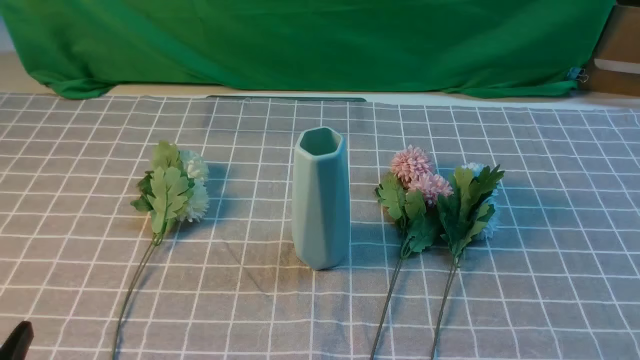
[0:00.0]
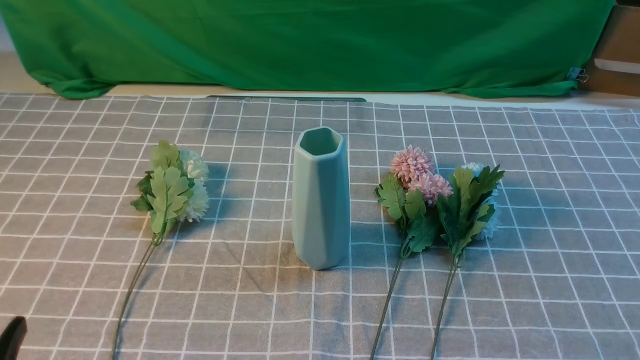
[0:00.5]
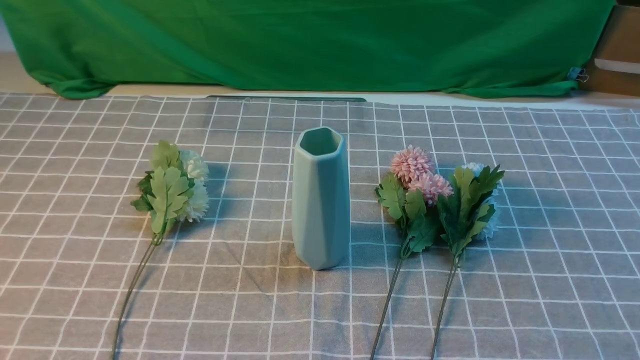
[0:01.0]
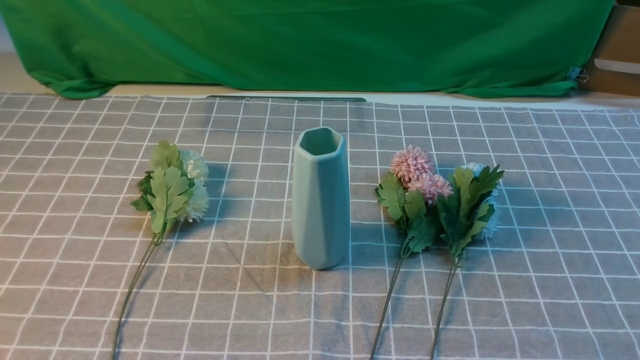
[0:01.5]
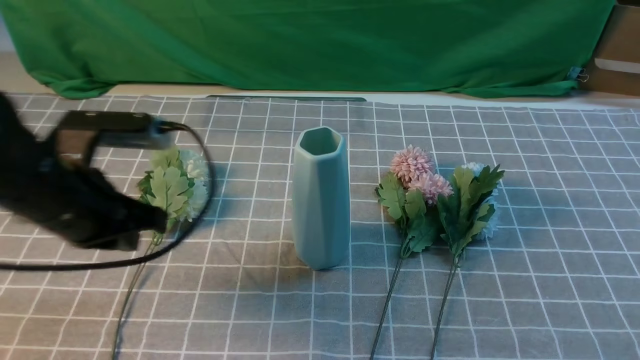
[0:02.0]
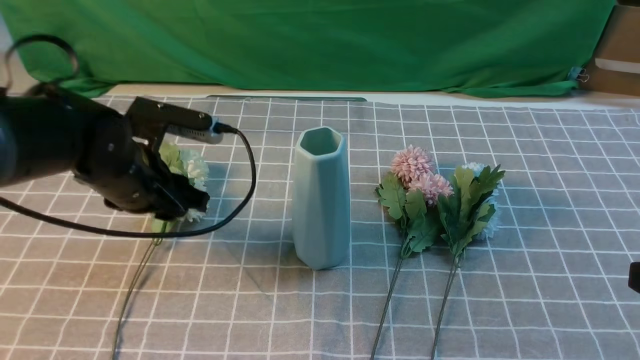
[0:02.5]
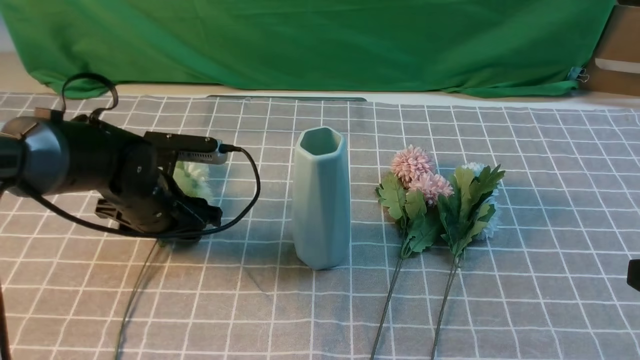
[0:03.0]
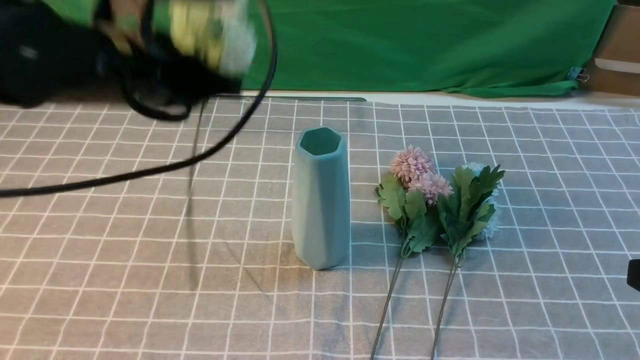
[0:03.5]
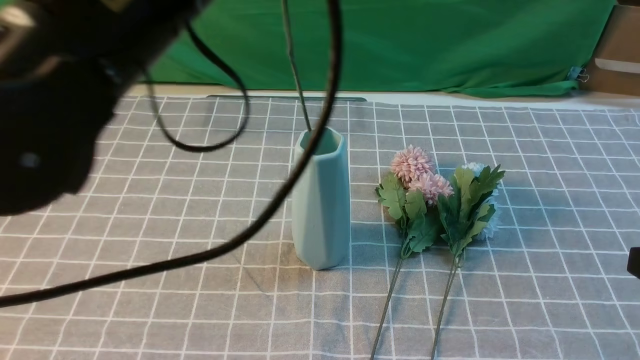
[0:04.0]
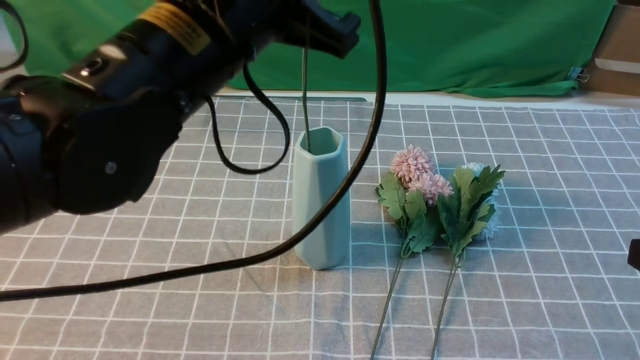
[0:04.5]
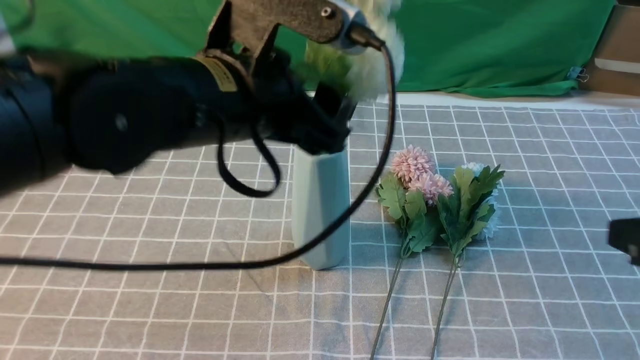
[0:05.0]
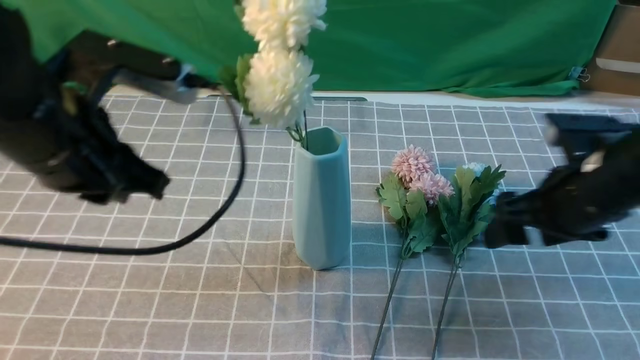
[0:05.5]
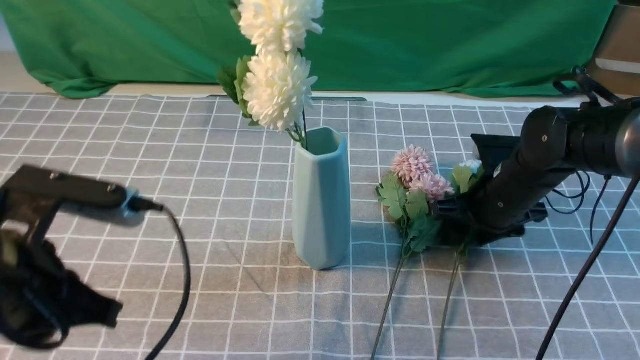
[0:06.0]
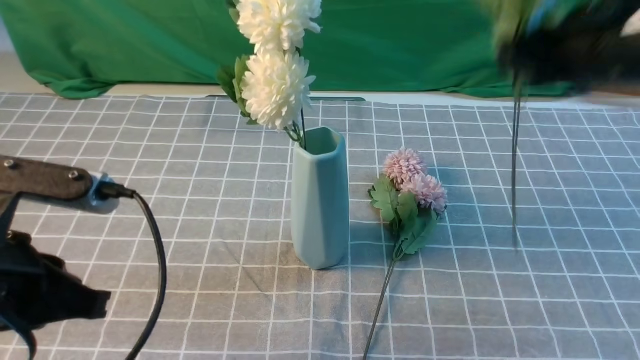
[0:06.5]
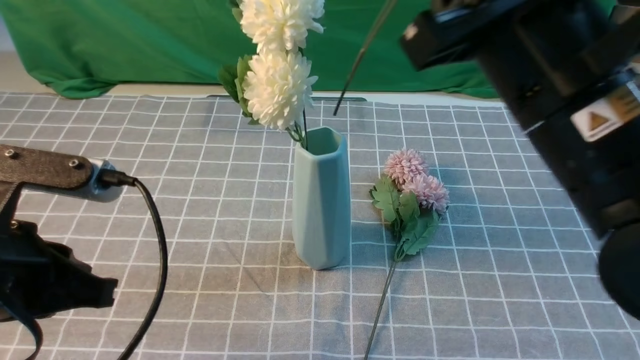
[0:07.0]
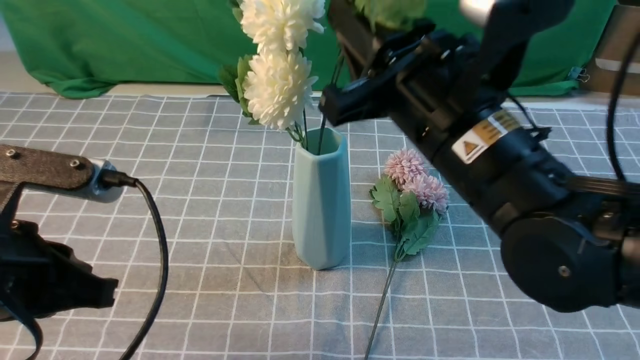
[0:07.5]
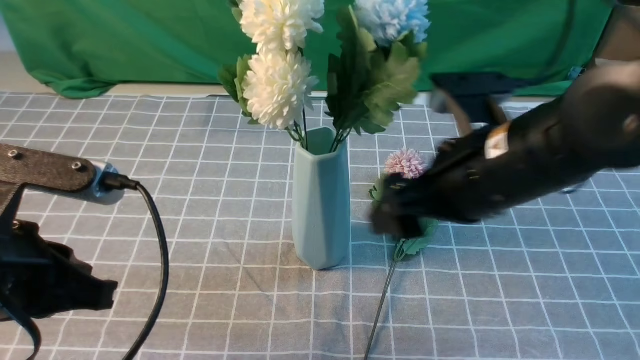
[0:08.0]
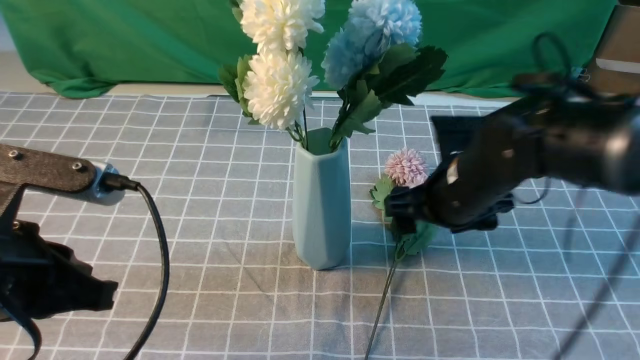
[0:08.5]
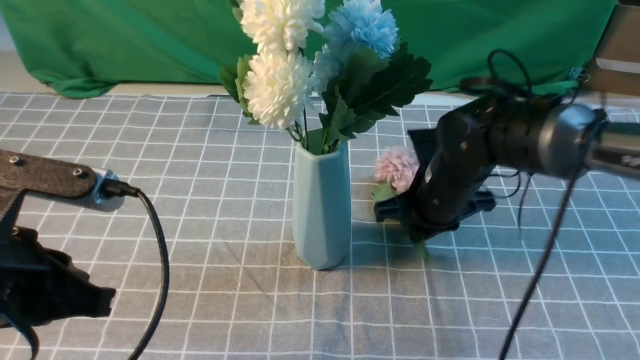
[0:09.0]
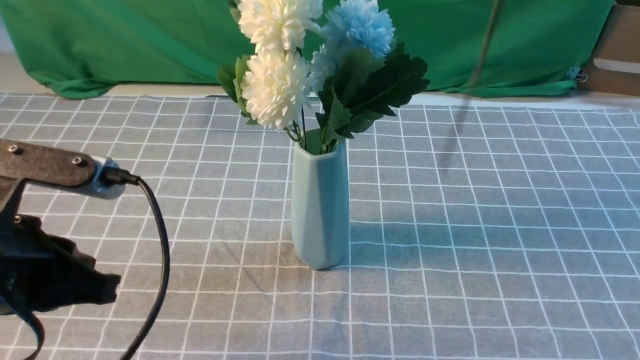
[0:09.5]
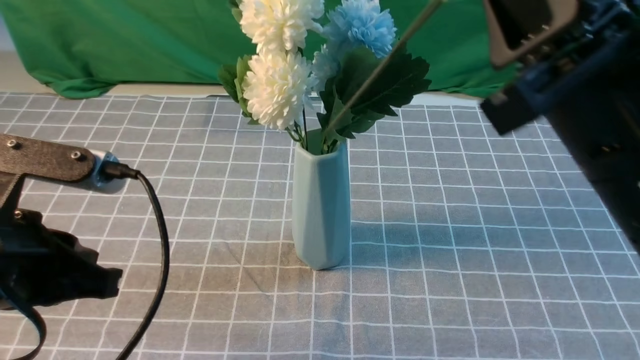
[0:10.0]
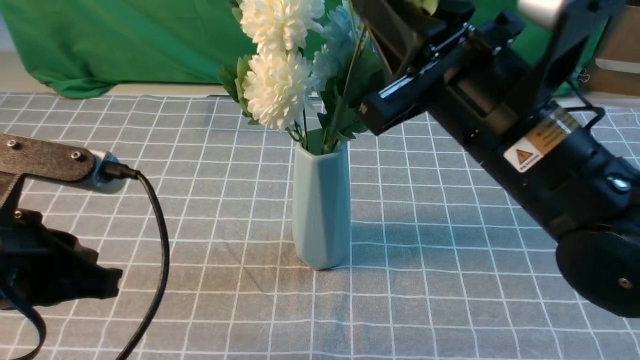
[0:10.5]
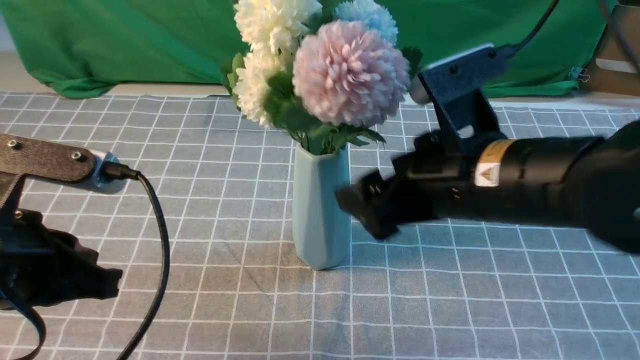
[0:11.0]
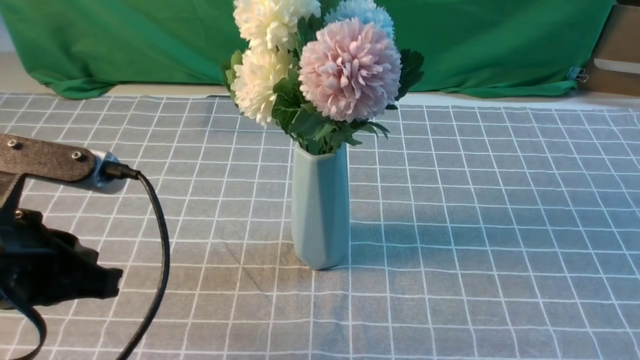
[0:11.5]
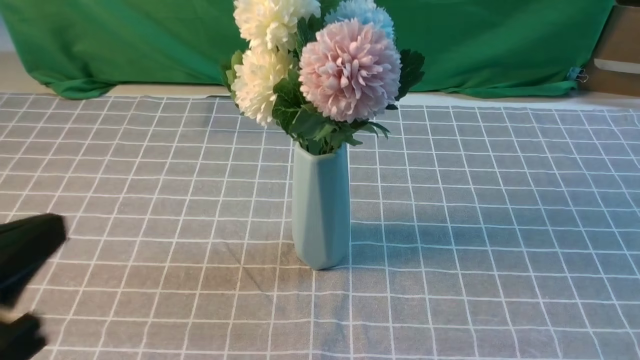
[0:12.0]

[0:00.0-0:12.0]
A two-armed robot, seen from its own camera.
Task of the whole recording: insert the flowers into the vase on the table with the grey tablecloth.
Step, 0:00.0 to 0:03.0: use the left arm to grab a bunch of fresh flowers.
Step, 0:03.5 to 0:05.0: use the left arm to insert the flowers into the vase.
Step, 0:05.5 to 0:06.0: use the right arm to grab a bunch of fresh flowers.
Step, 0:06.5 to 0:08.0: use the right arm to insert the flowers into the vase.
Step, 0:09.5 to 0:11.0: use the right arm to insert the flowers into the vase.
0:00.0 to 0:02.0: The left gripper travels forward by roughly 20 cm, and closes. The right gripper goes approximately 10 cm upward.
0:02.0 to 0:04.0: The right gripper heads forward, covering approximately 5 cm. Meanwhile the left gripper shifts roughly 20 cm upward and to the right, and opens, then closes once more.
0:04.0 to 0:06.0: The right gripper is displaced forward and downward by approximately 30 cm, and opens. Meanwhile the left gripper goes about 20 cm downward, to the left and backward, and opens, then closes once more.
0:06.0 to 0:08.0: The right gripper moves upward, backward and to the left, roughly 20 cm, and opens its fingers.
0:08.0 to 0:10.0: The right gripper moves up and down over about 25 cm, changing direction 2 times, and closes its fingers.
0:10.0 to 0:12.0: The right gripper goes some 20 cm backward and to the right, and opens, then closes once more; the left gripper is displaced backward by some 10 cm.

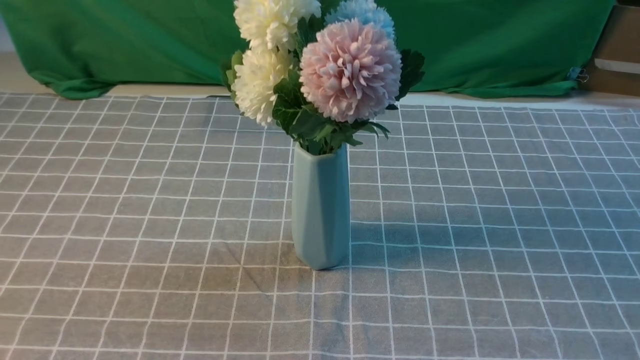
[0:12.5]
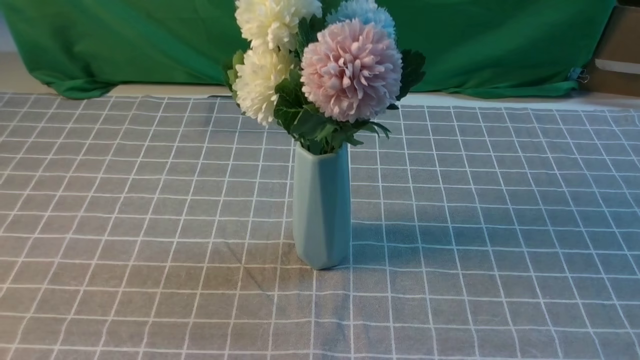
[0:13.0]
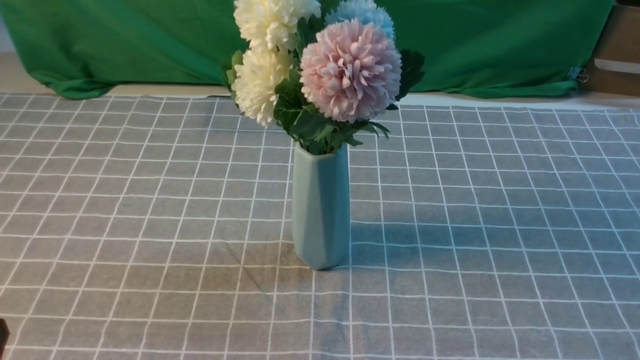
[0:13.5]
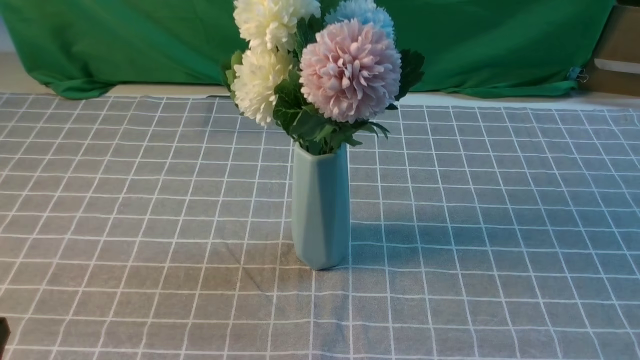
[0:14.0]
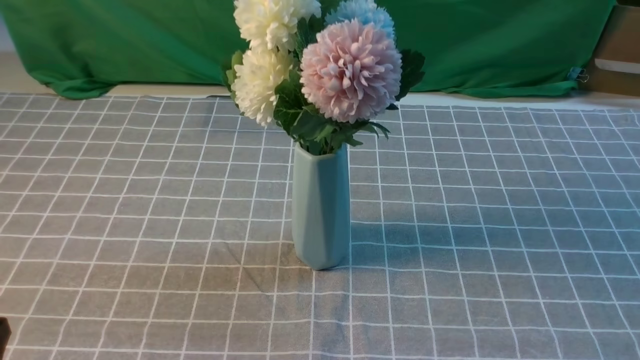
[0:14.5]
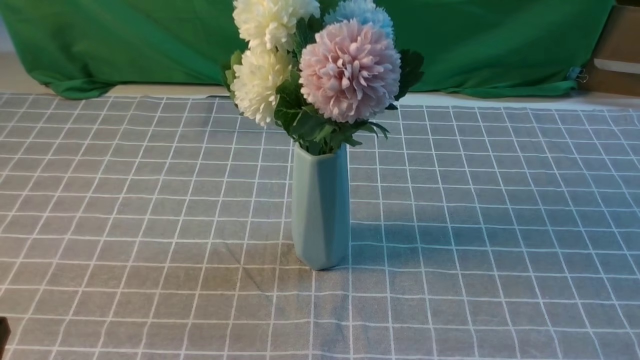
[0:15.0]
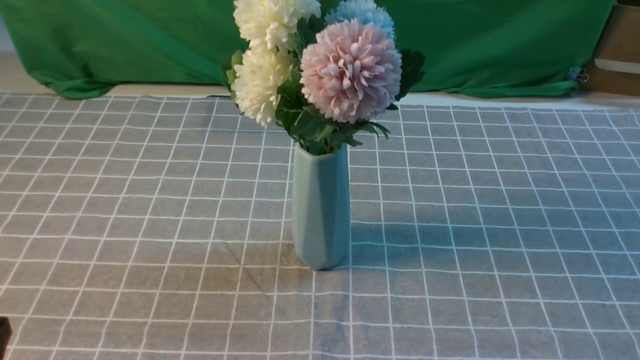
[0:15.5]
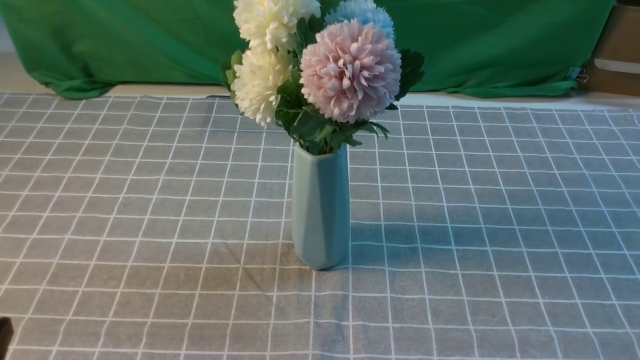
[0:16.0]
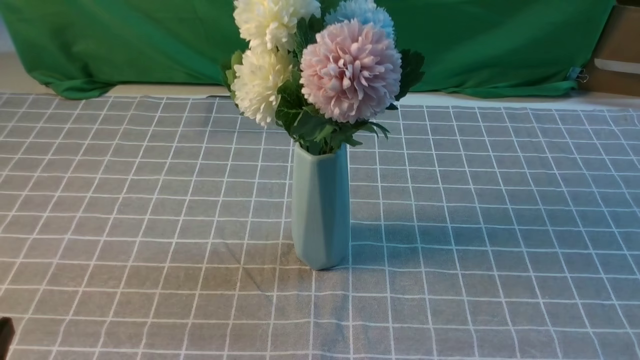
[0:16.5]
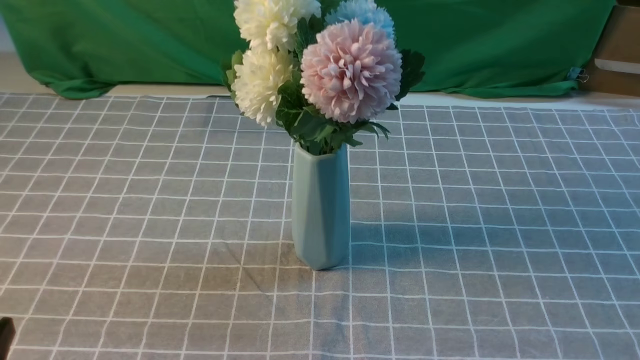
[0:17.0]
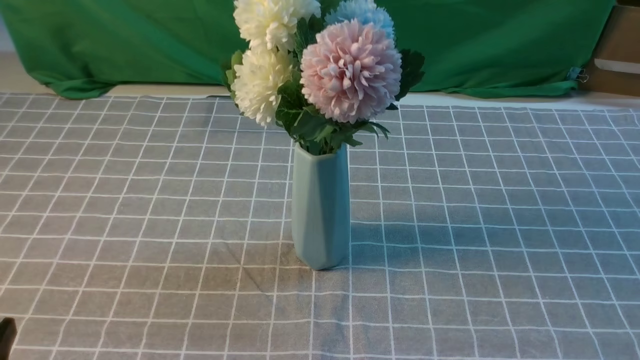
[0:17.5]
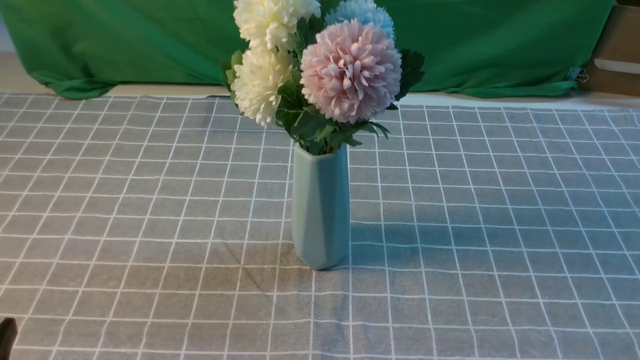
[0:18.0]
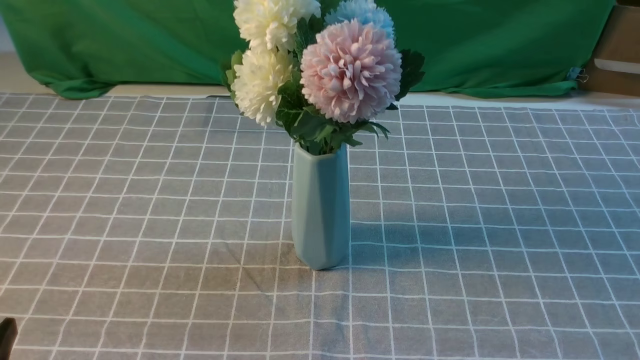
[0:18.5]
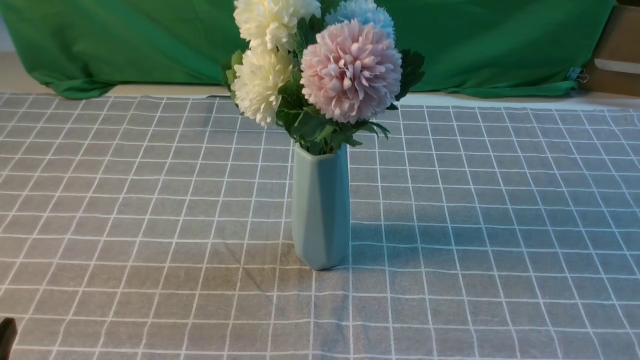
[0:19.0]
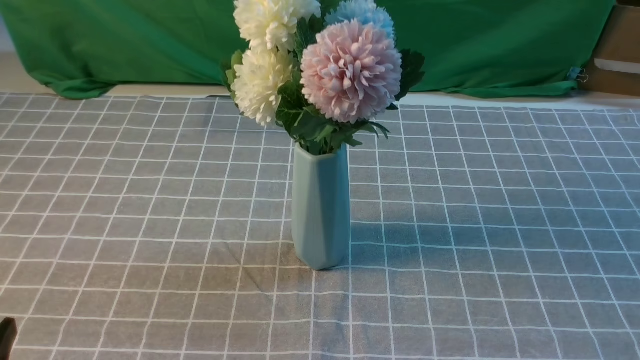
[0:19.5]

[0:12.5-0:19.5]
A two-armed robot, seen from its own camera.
Task of the whole recording: insert the flowers into the vase on the table with the grey tablecloth.
0:17.5 to 0:19.5: Both grippers stay put.
